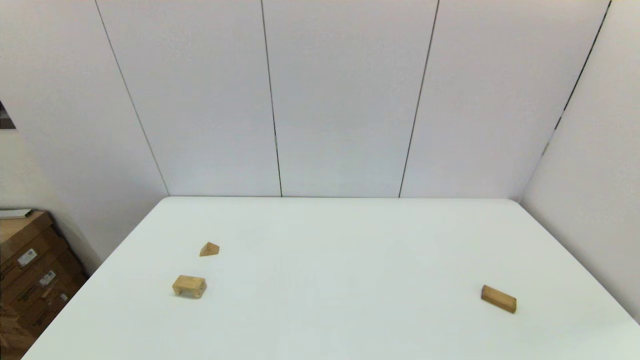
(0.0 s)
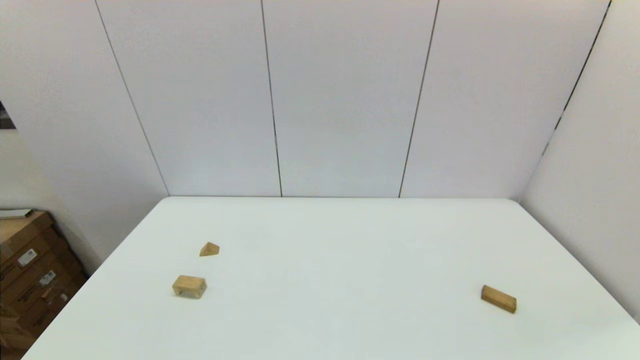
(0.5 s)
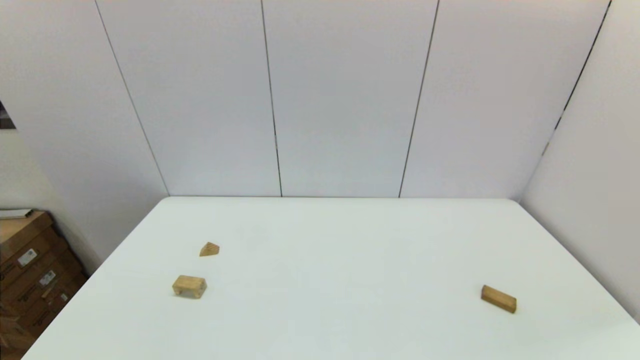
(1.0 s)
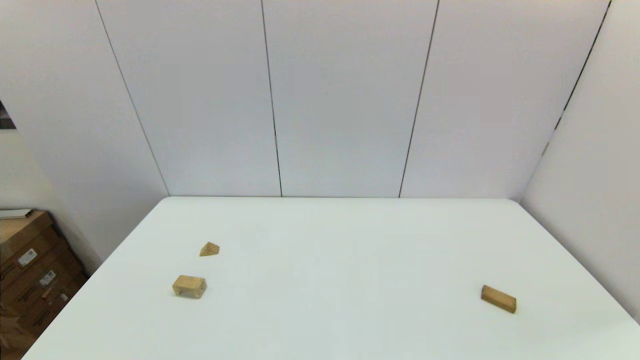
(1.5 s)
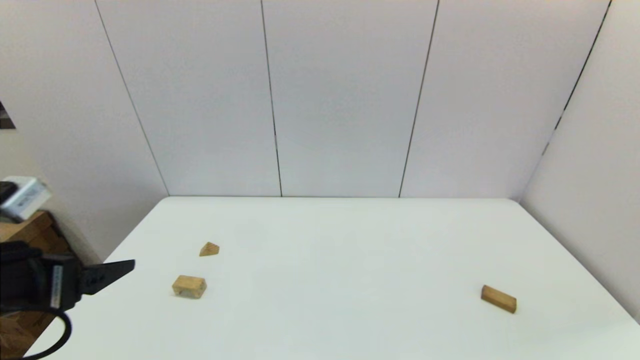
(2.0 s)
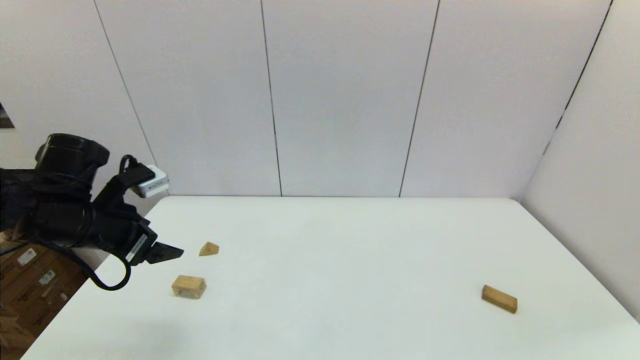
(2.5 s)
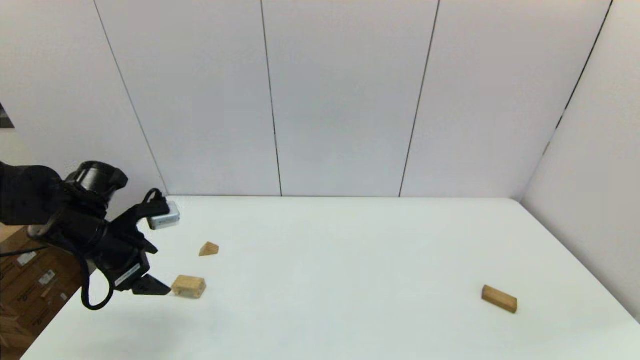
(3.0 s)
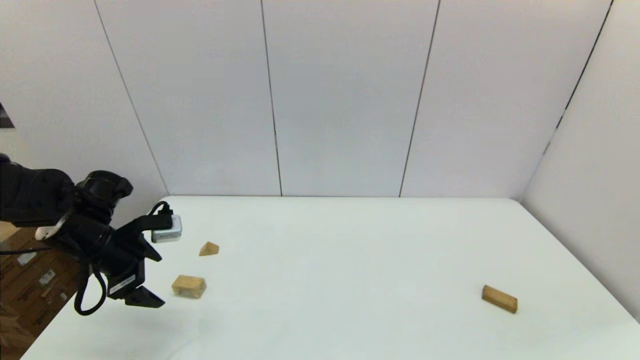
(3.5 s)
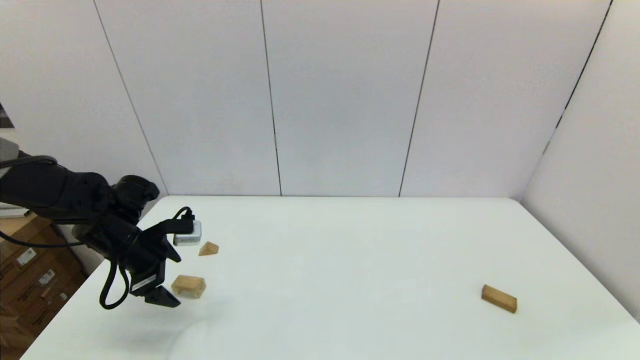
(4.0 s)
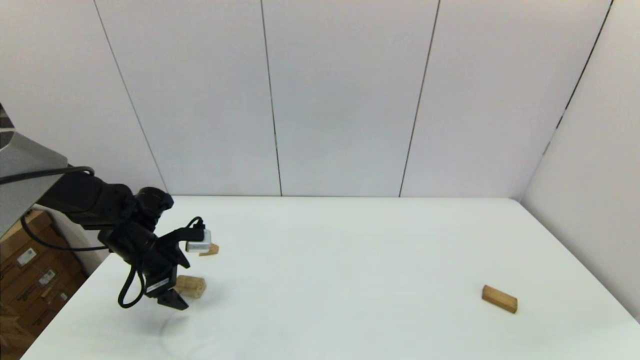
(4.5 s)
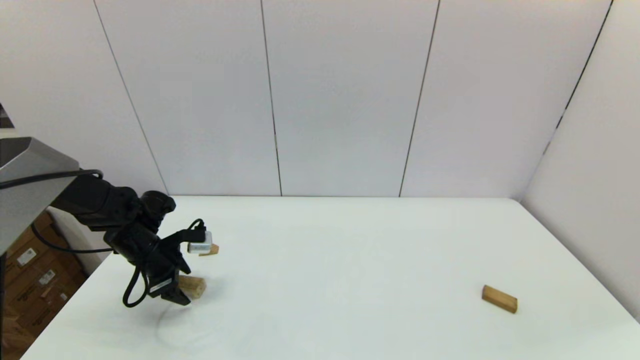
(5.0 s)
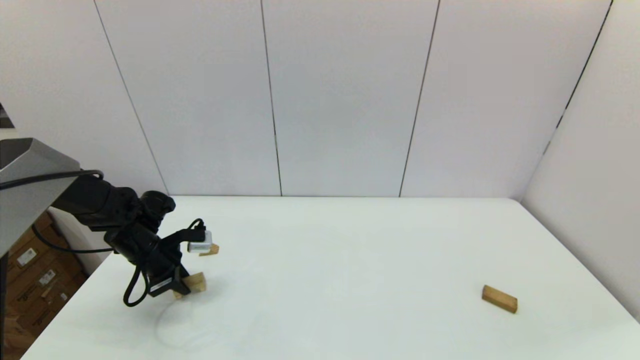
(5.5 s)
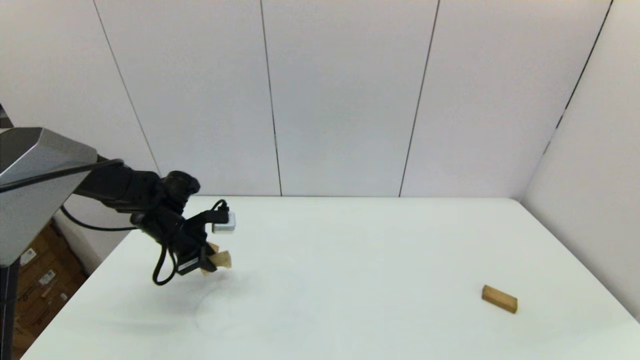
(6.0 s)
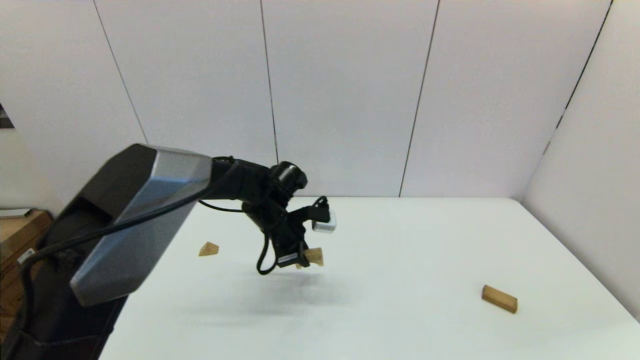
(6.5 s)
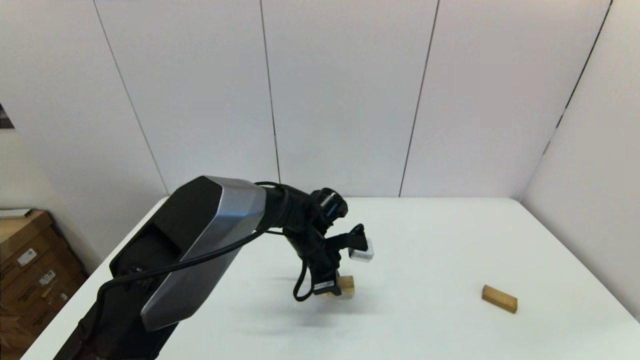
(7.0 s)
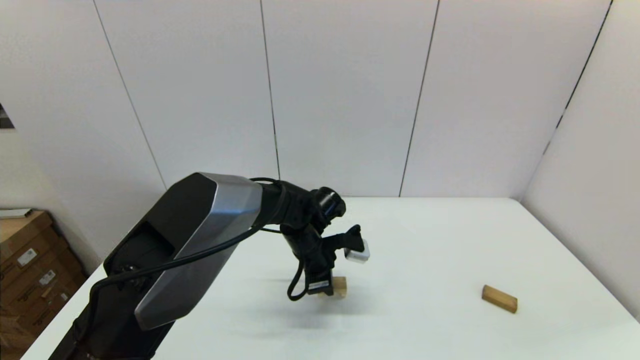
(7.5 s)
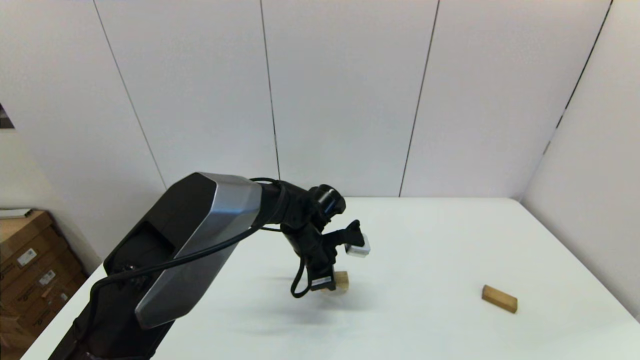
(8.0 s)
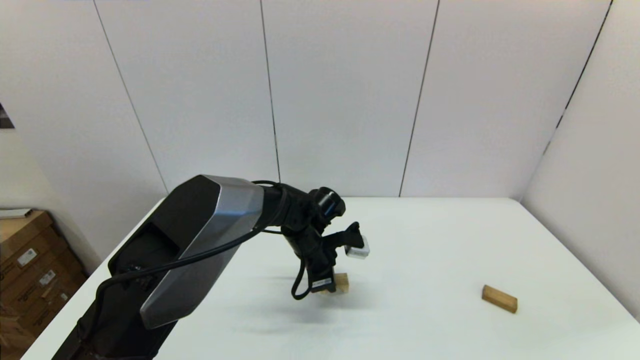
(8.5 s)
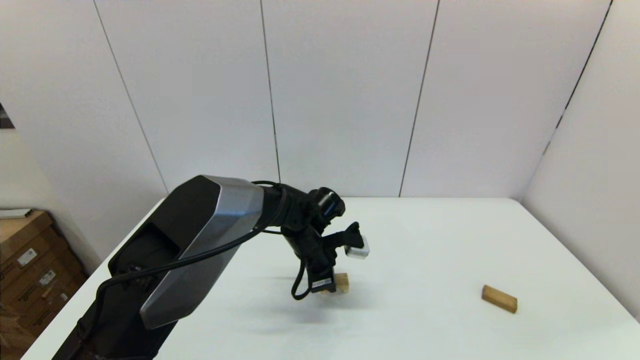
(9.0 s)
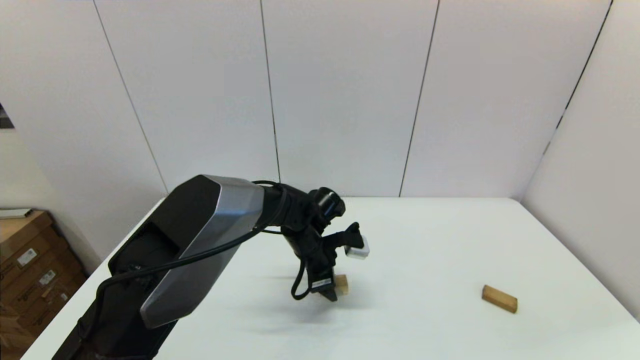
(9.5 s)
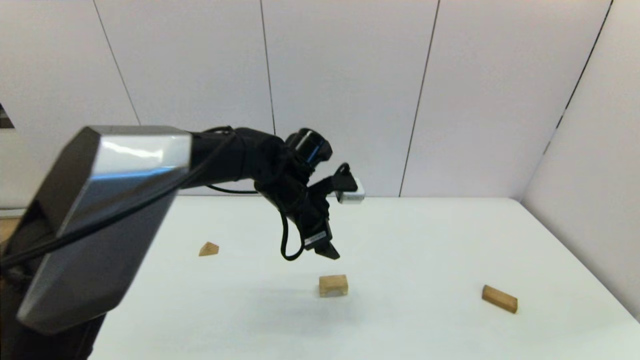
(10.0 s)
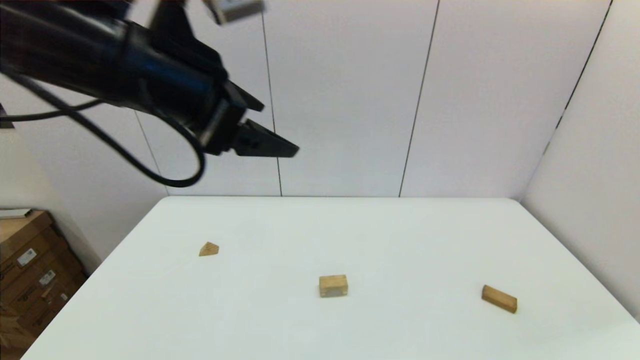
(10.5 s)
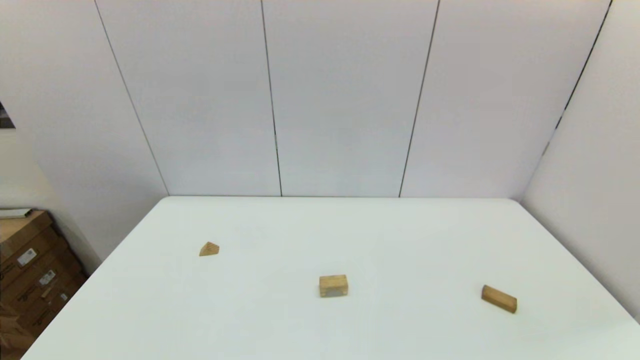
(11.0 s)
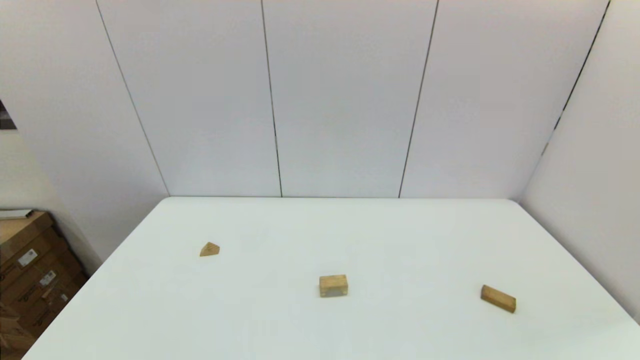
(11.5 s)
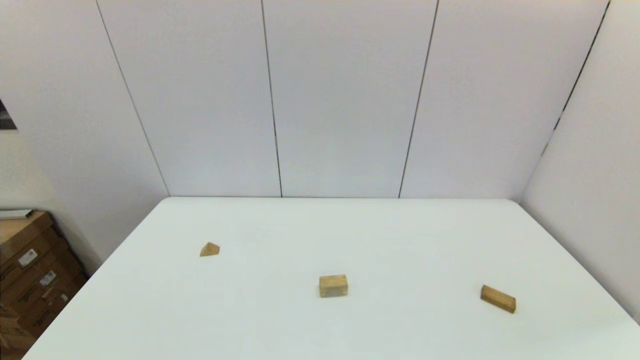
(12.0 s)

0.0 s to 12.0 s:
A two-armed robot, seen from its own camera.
Task of the whole recording: place the arched building blocks in the center of the table, set up the rectangular building blocks, and then set up the triangular building blocks.
Step, 2.0 to 5.0 s: Grasp the arch-shaped block with the left gripper.
Step, 6.0 to 9.0 s: Place the arch-shaped block in the center of view with the left gripper.
0.0 to 2.0 s: The left gripper travels forward and upward by roughly 20 cm.
2.0 to 4.0 s: The left gripper is displaced forward and downward by approximately 20 cm.
4.0 to 6.0 s: The left gripper heads forward, covering roughly 5 cm, and closes.
6.0 to 8.0 s: The left gripper shifts some 25 cm to the right.
8.0 to 10.0 s: The left gripper goes roughly 10 cm upward, and opens up.
10.0 to 12.0 s: The left gripper goes approximately 50 cm backward and to the left.

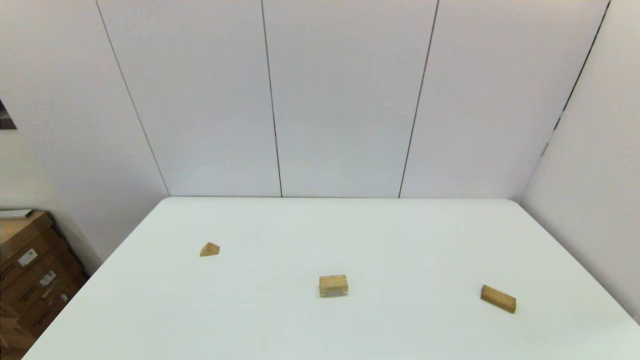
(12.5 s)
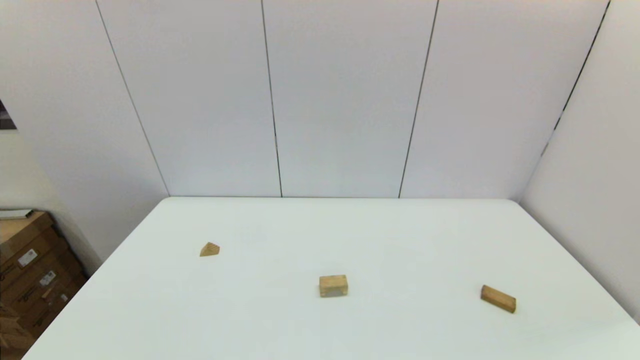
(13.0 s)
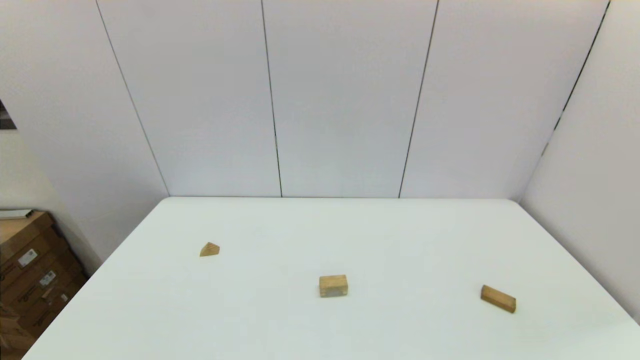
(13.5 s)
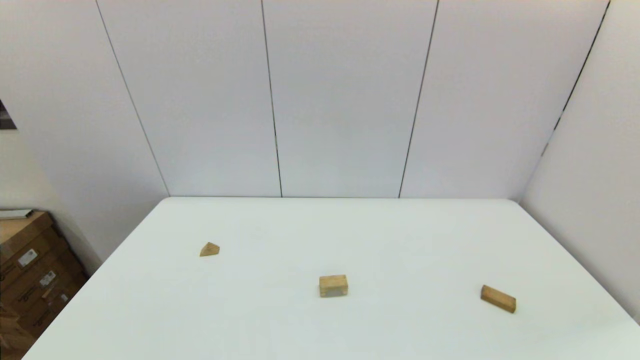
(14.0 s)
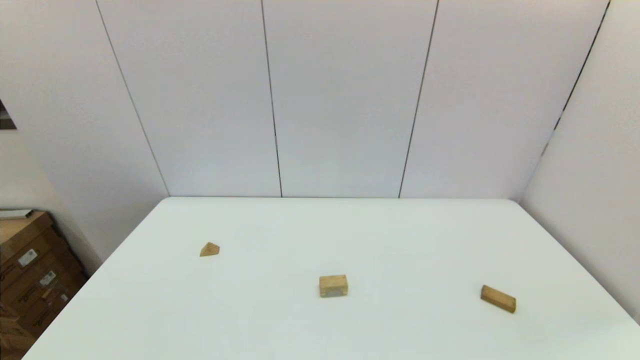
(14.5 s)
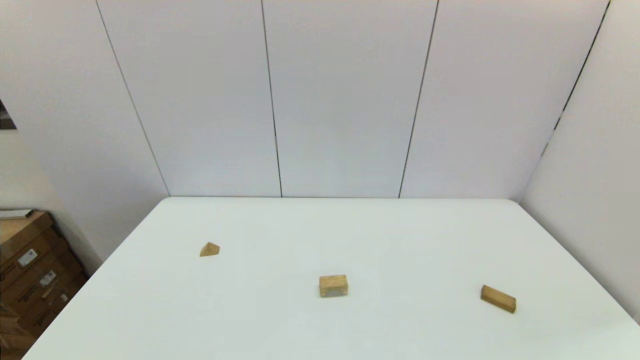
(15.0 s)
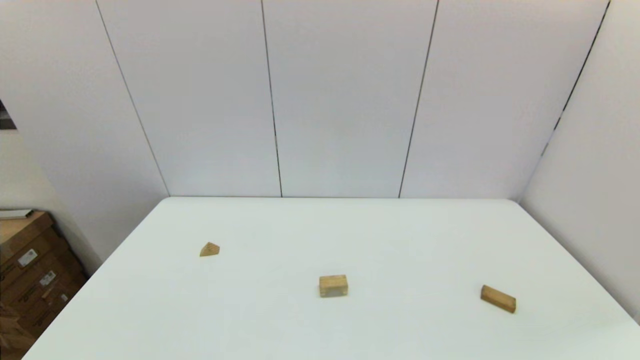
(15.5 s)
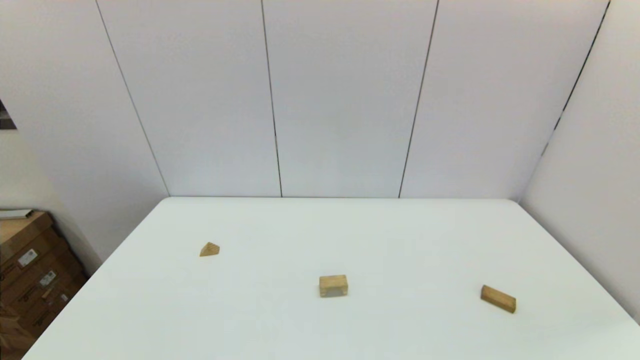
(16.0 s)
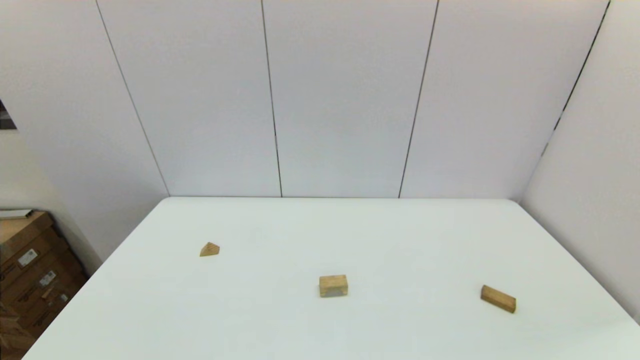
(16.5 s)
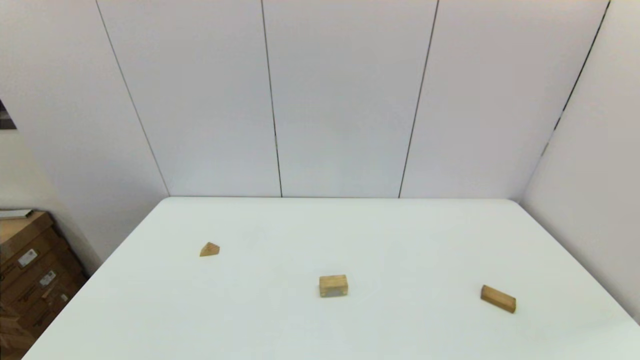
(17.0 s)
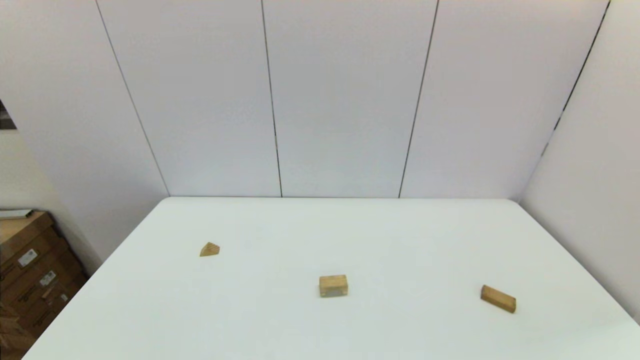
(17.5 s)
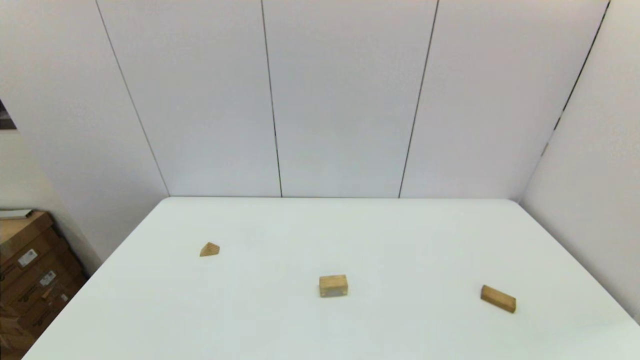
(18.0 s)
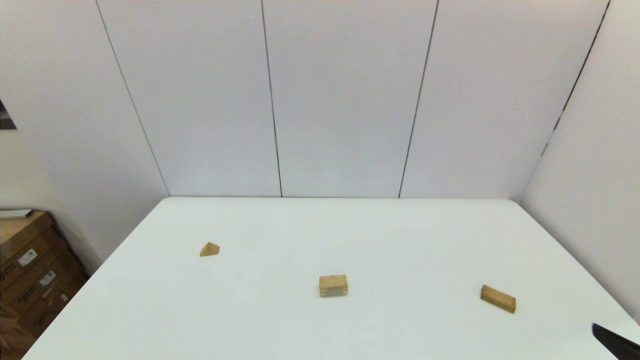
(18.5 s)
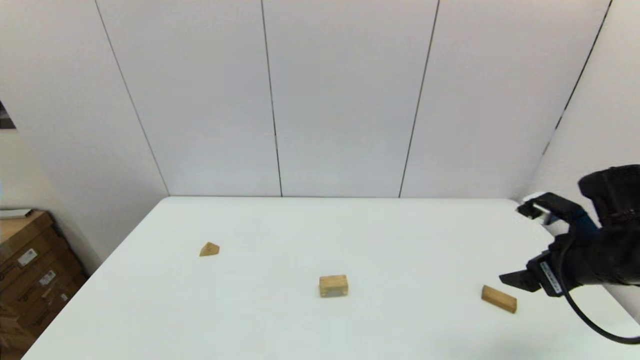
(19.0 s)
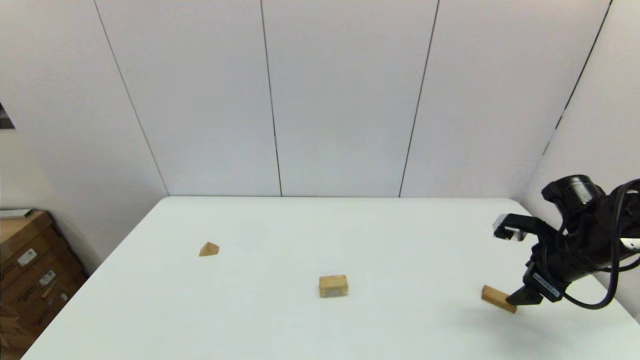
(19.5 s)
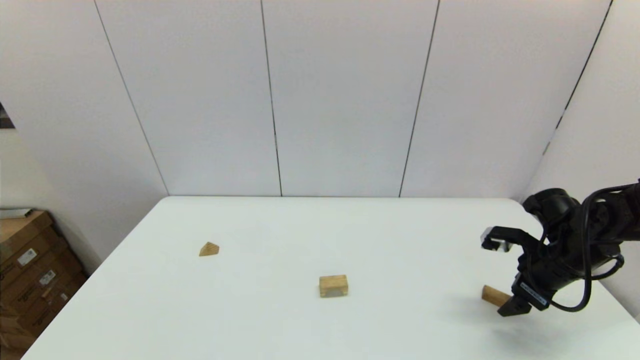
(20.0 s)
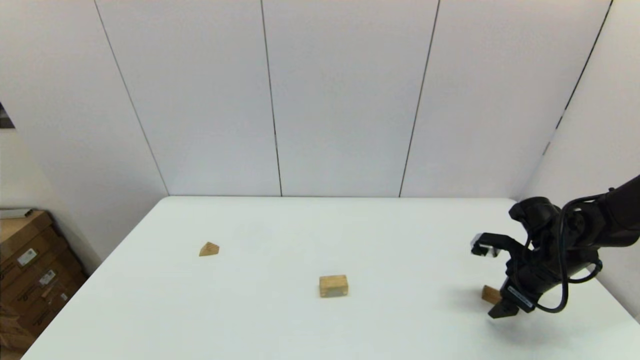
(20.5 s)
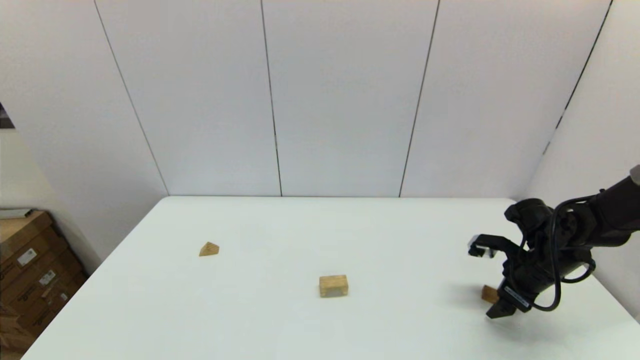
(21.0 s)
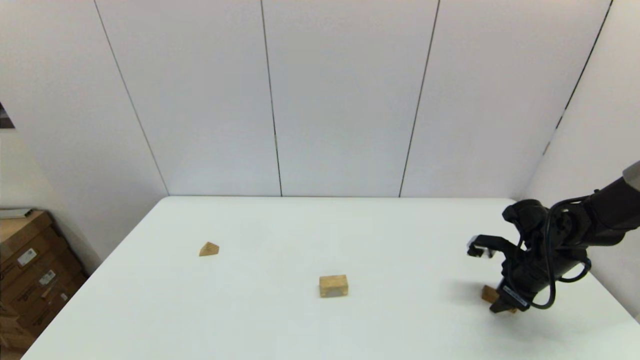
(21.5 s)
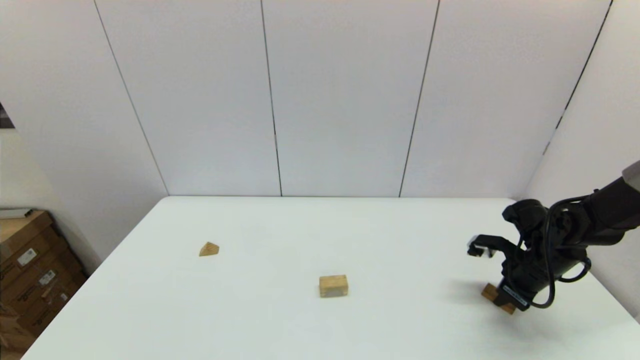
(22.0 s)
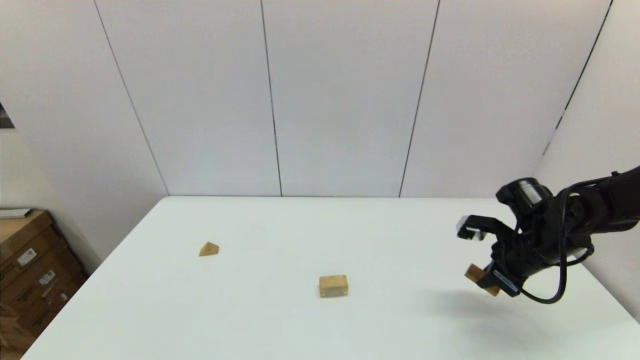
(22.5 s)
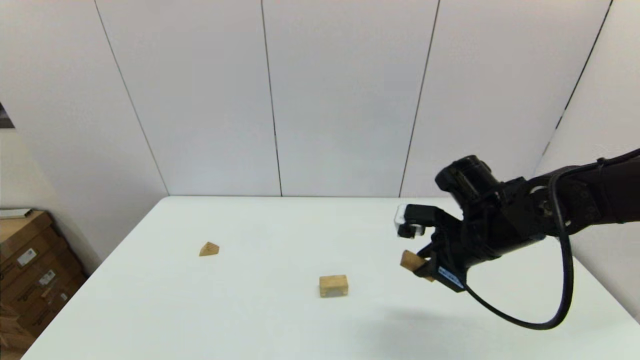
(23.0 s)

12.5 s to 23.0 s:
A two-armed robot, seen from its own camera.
Task of the whole recording: place the arched building blocks in the center of the table, set up the rectangular building blocks, and then set up the triangular building blocks.
Step, 12.5 to 22.0 s: Grasp the box-shaped block with the right gripper.
14.5 to 16.5 s: Both grippers stay put.
16.5 to 19.0 s: The right gripper is displaced forward by roughly 25 cm.
19.0 to 21.0 s: The right gripper travels downward and forward by some 15 cm.
21.0 to 23.0 s: The right gripper is displaced to the left and upward by roughly 20 cm, and closes.
